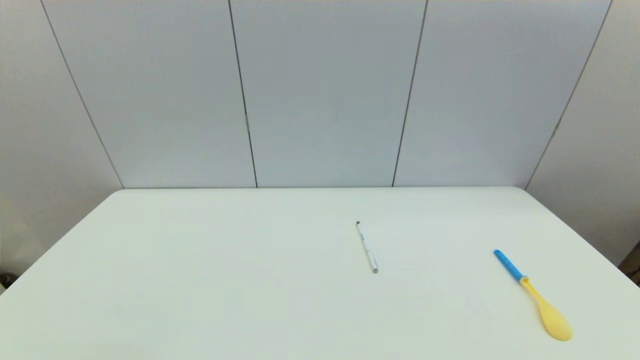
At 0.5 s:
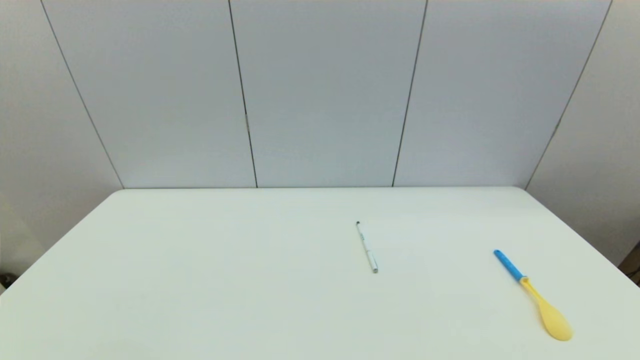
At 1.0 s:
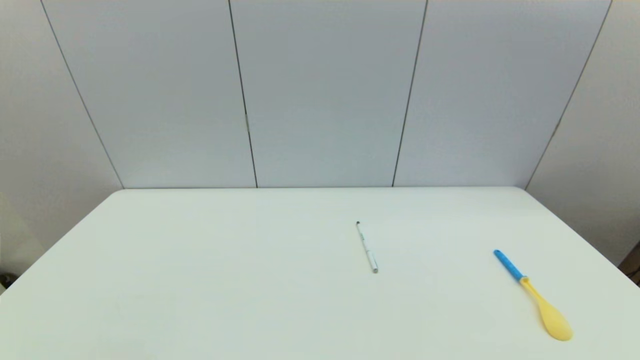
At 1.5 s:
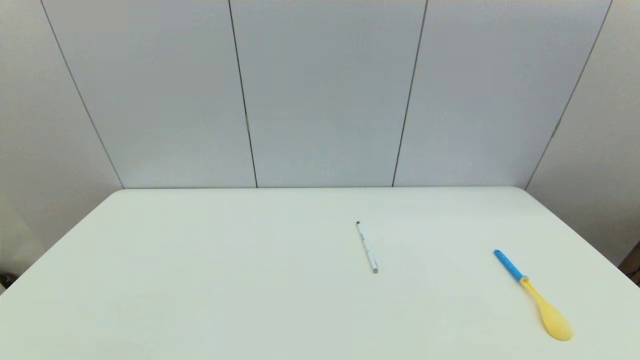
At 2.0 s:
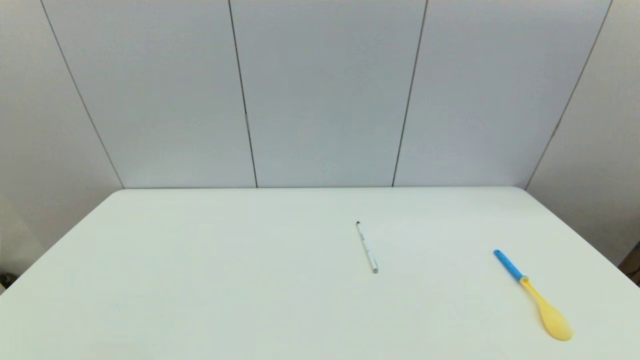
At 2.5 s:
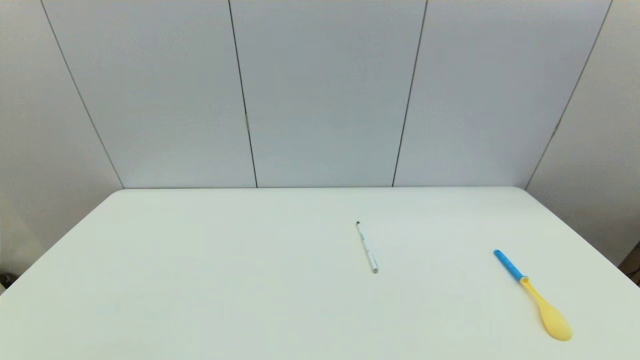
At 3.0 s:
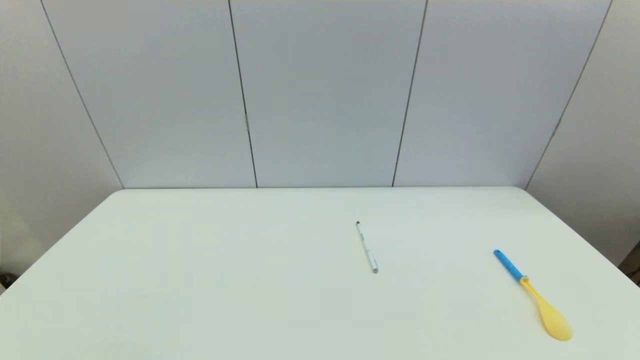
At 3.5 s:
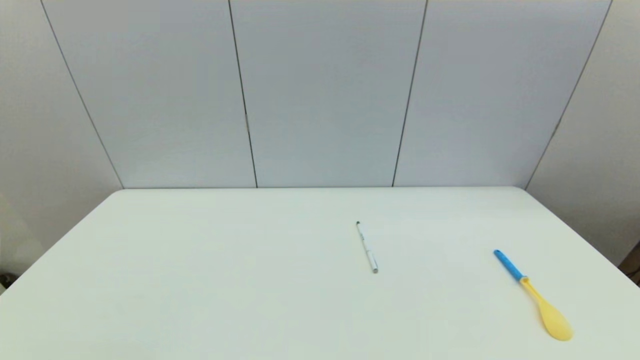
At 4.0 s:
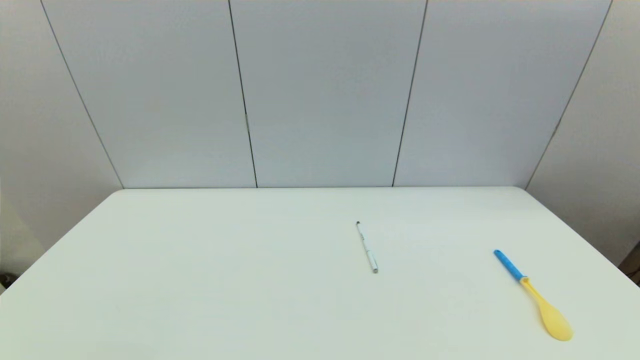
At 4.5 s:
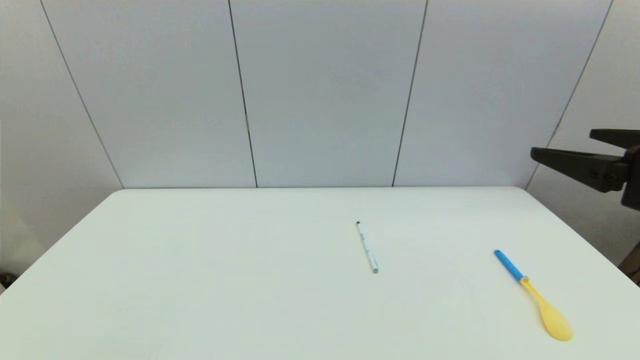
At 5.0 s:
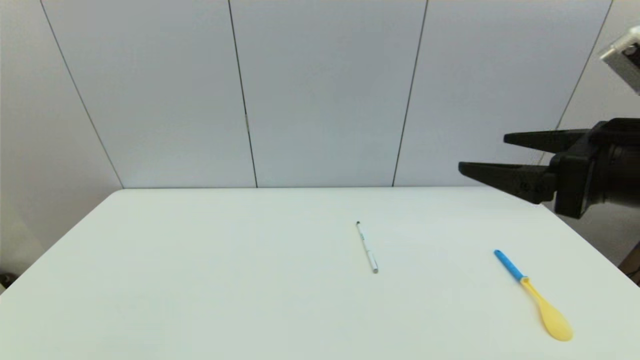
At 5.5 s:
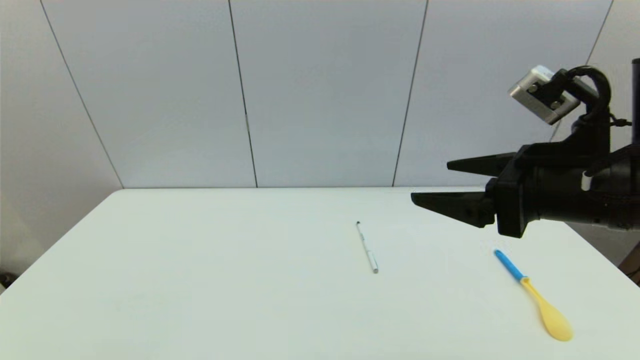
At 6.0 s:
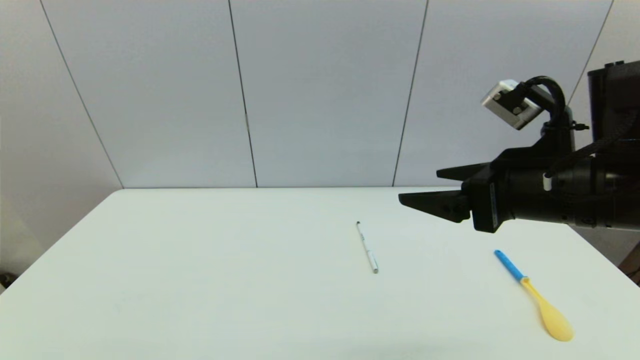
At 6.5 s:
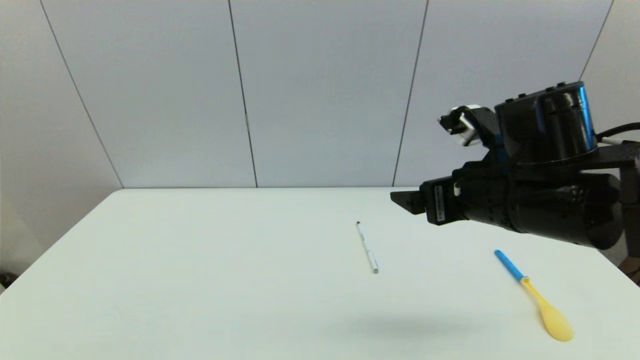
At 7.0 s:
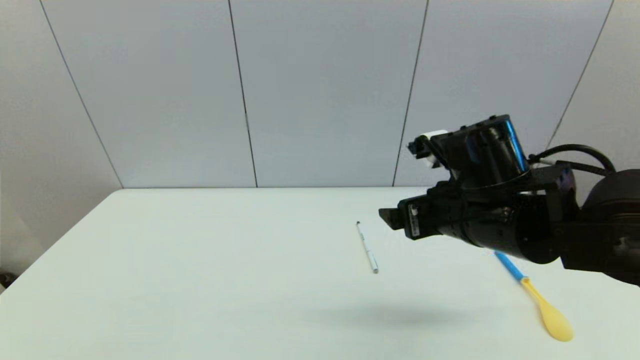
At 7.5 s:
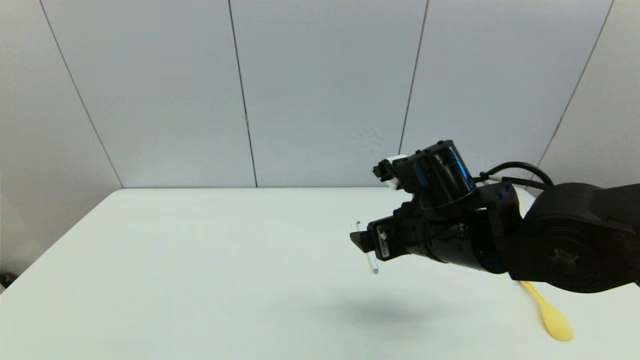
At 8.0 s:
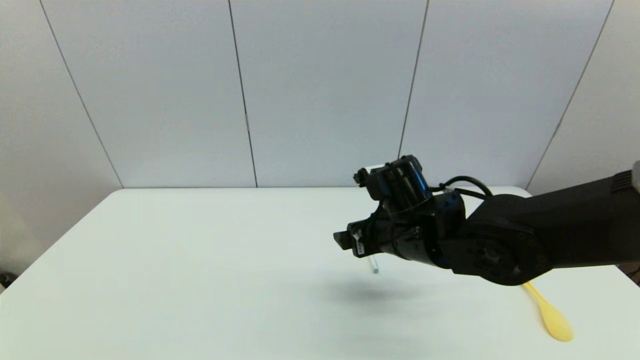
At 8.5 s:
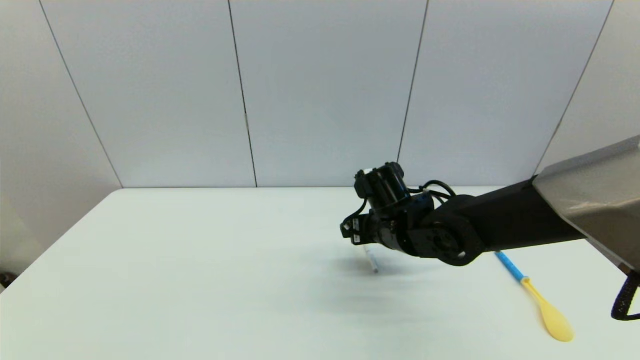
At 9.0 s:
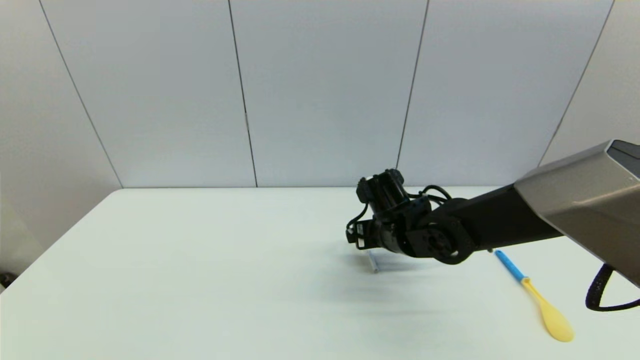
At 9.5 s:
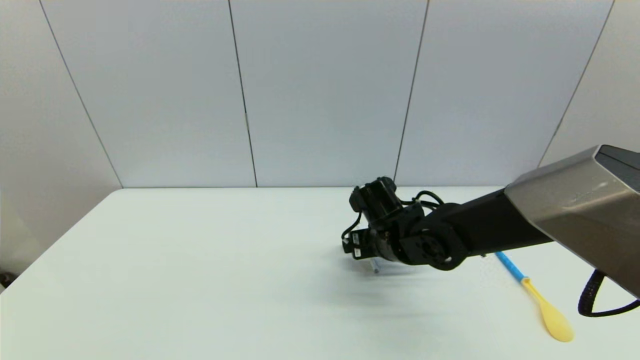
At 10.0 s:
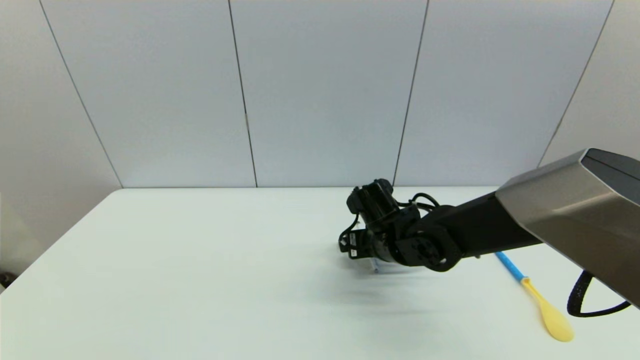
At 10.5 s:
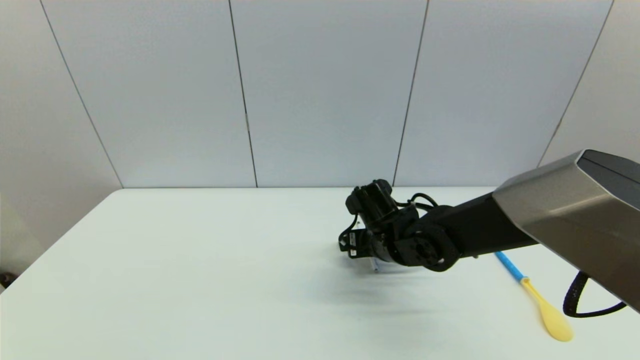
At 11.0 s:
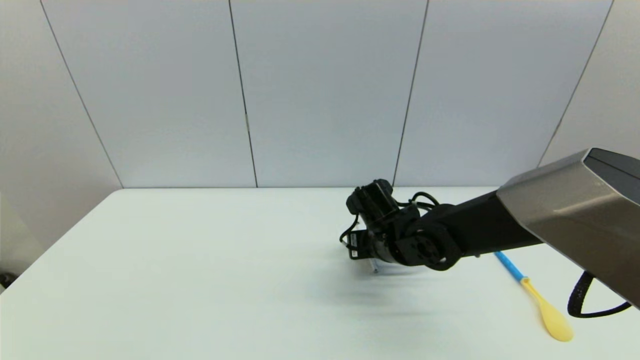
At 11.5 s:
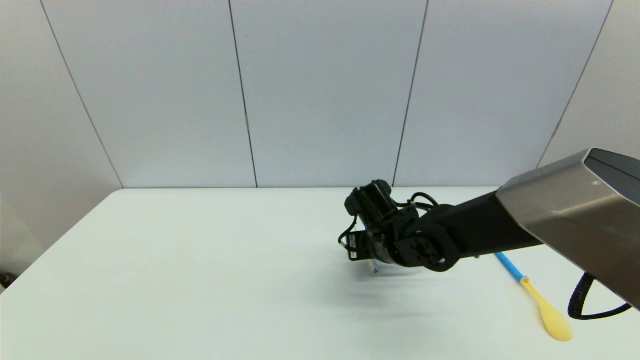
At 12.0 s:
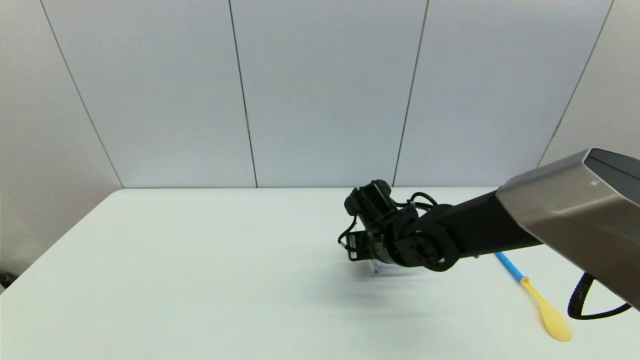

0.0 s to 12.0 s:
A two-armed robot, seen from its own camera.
Task of the whole recording: put the pen in the designated position.
Step, 4.0 to 11.5 s: Grasp the sign pen with right gripper.
0.0 to 2.0 s: Neither gripper changes place.
4.0 to 6.0 s: The right gripper heads forward and to the left, covering about 20 cm.
6.0 to 8.0 s: The right gripper travels downward, to the left and forward by some 15 cm.
8.0 to 10.0 s: The right gripper heads downward, covering approximately 5 cm.
10.0 to 12.0 s: The right gripper closes.

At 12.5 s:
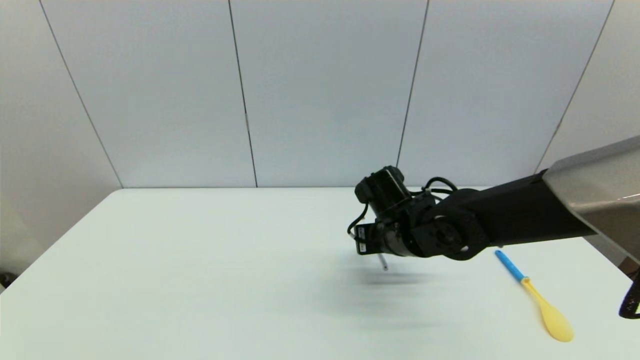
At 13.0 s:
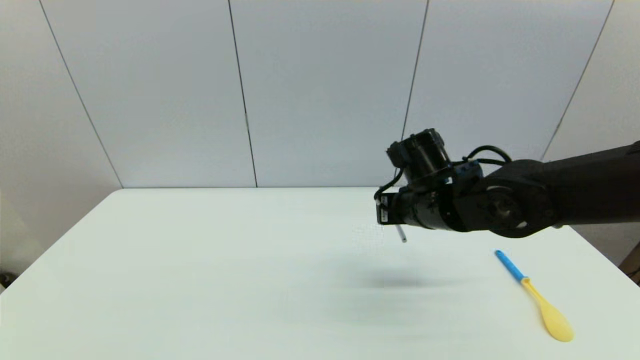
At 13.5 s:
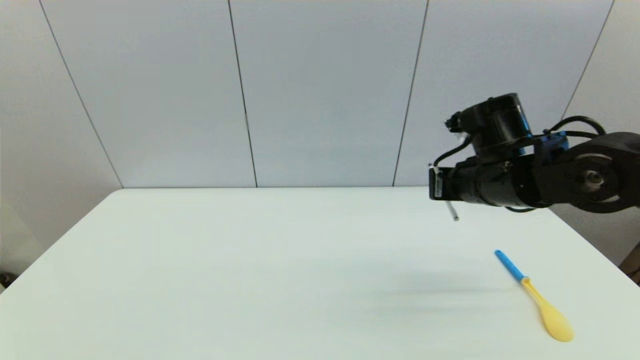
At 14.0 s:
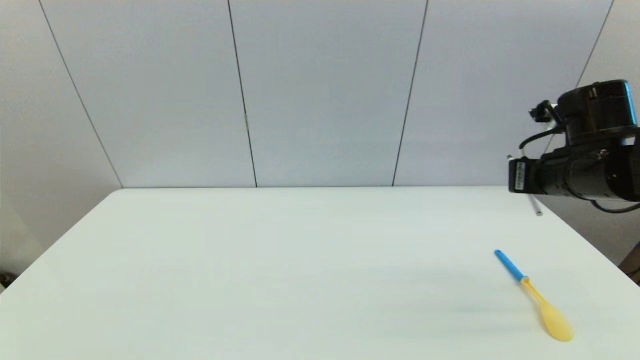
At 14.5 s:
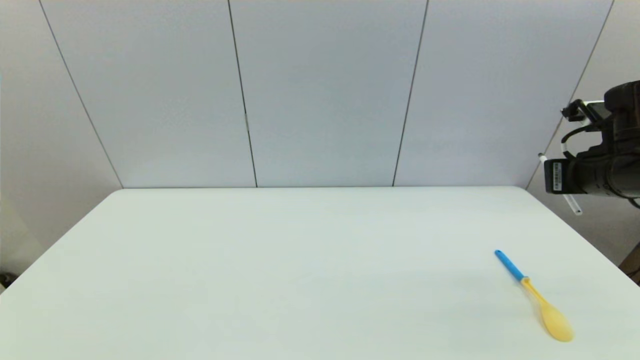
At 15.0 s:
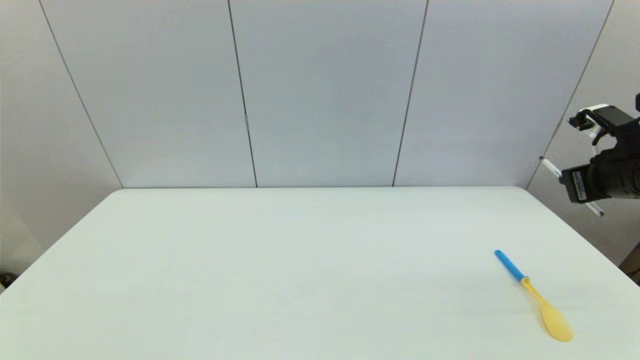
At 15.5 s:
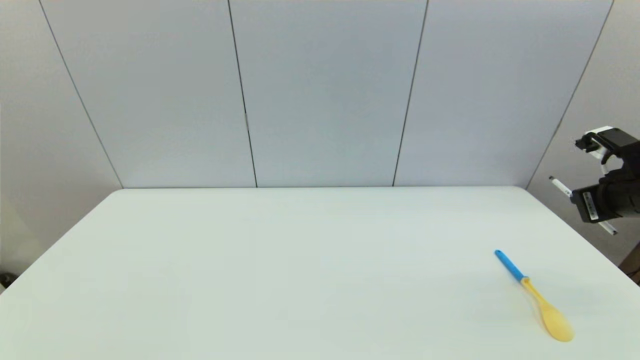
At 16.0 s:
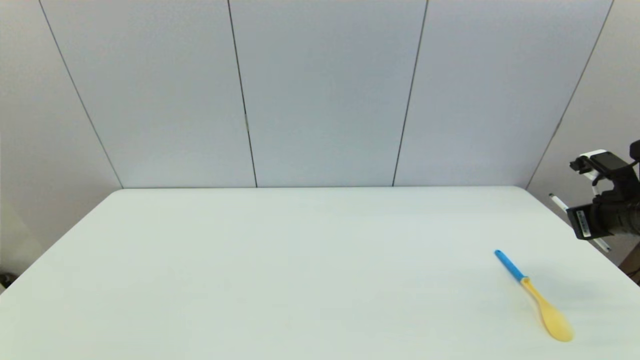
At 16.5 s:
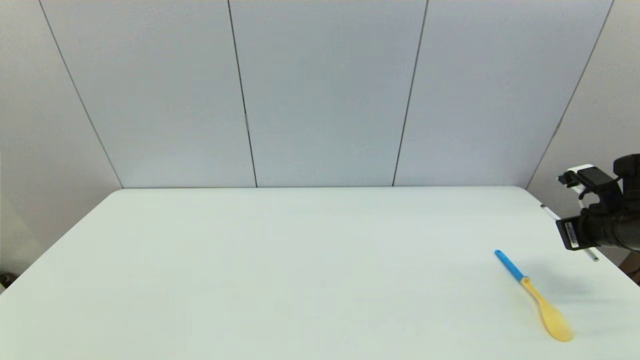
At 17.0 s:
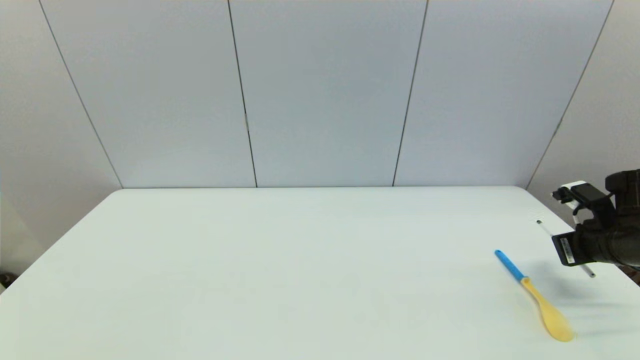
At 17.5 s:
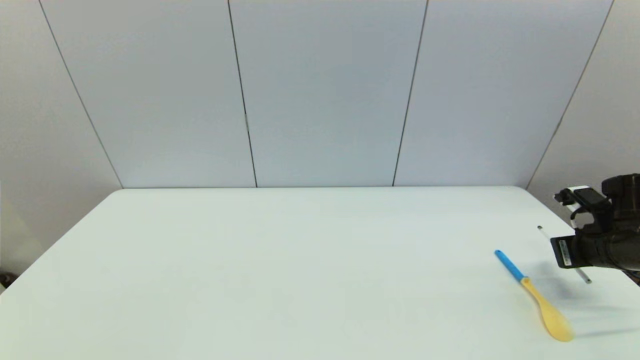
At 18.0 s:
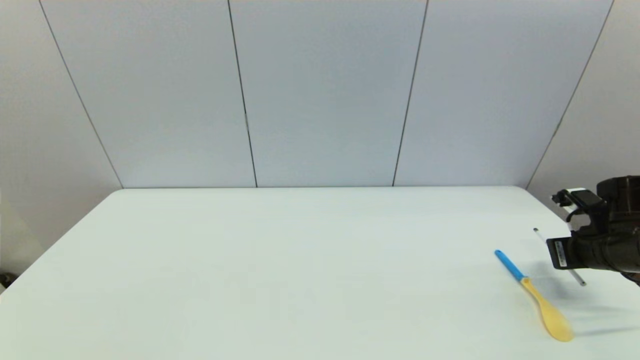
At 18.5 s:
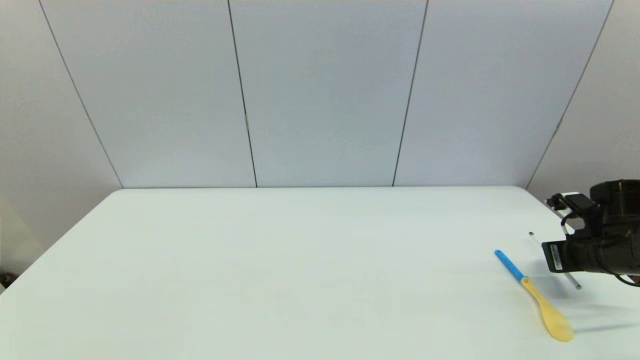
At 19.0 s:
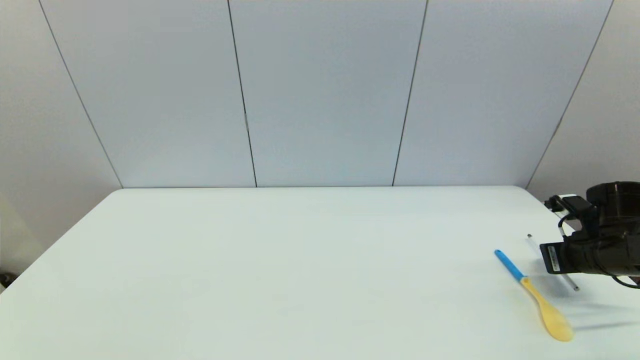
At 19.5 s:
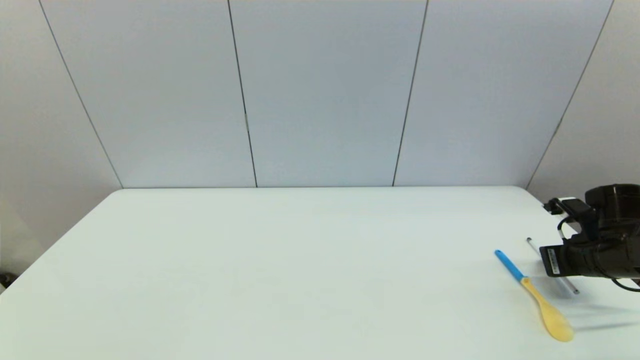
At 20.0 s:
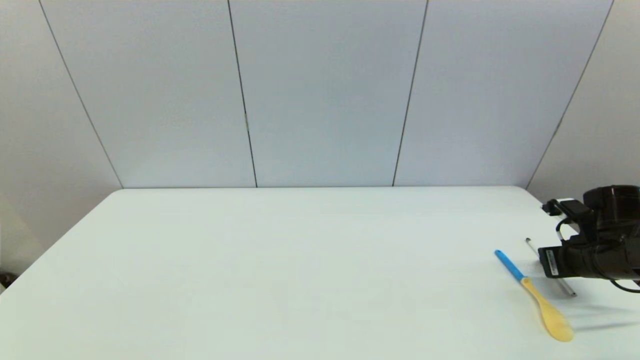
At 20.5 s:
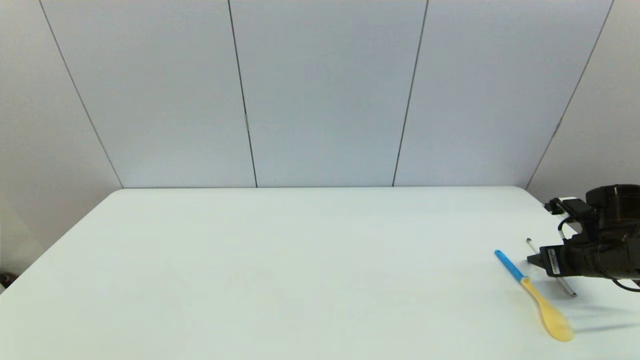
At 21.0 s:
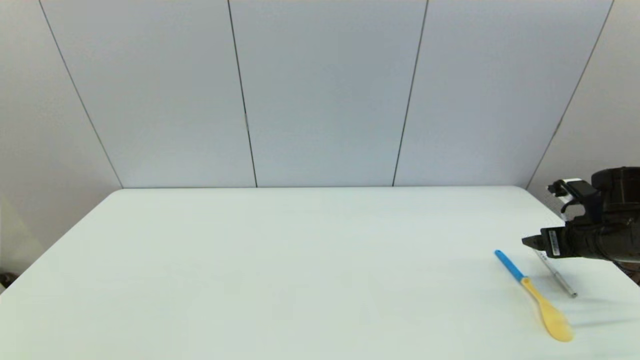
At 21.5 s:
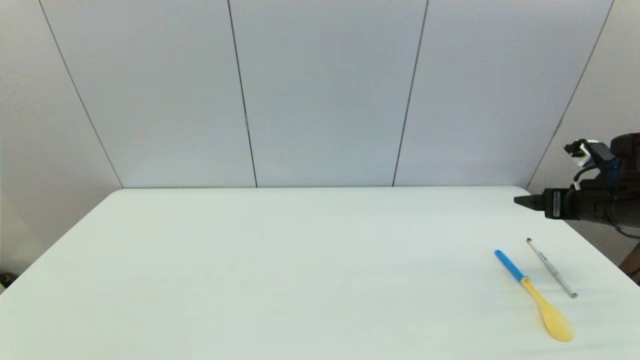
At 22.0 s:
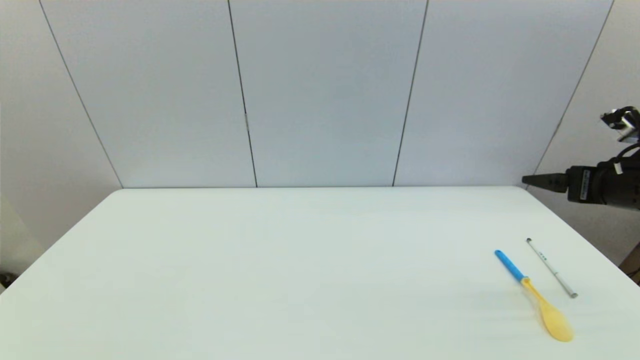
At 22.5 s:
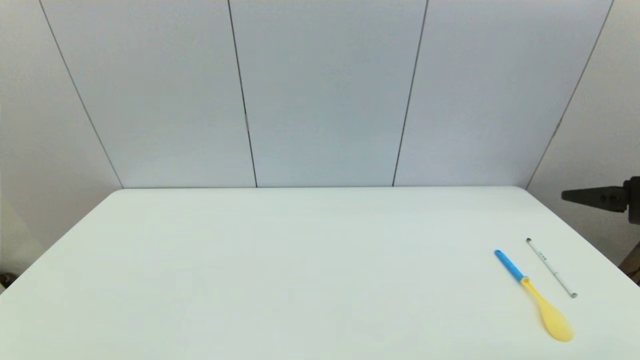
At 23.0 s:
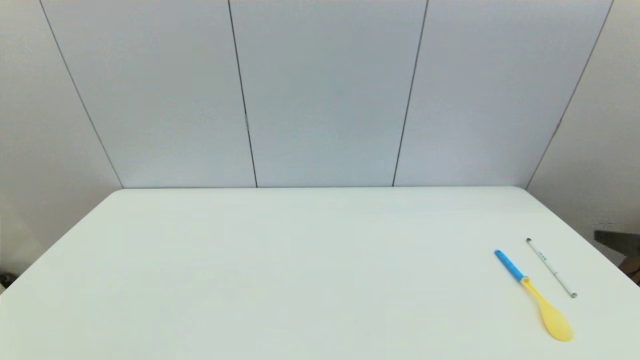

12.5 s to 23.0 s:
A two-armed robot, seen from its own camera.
Task of the whole recording: put the pen in the designated position.
Step, 12.5 to 20.0 s: Place the sign pen on the table with right gripper.
12.5 to 14.5 s: The right gripper goes some 25 cm to the right and upward.
14.5 to 16.5 s: The right gripper goes some 10 cm downward and to the right.
16.5 to 19.0 s: The grippers make only small movements.
19.0 to 21.0 s: The right gripper opens up.
21.0 to 23.0 s: The right gripper shifts roughly 20 cm backward and upward.
